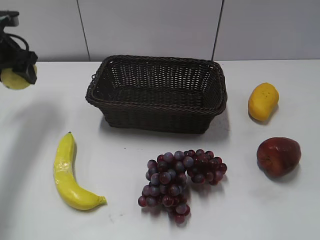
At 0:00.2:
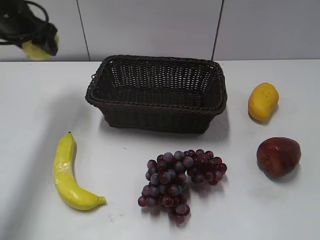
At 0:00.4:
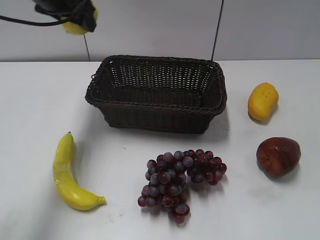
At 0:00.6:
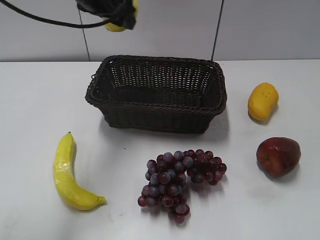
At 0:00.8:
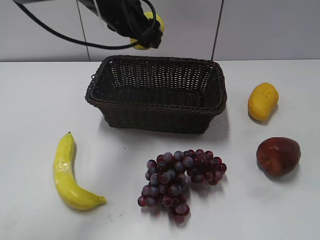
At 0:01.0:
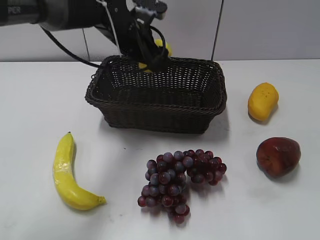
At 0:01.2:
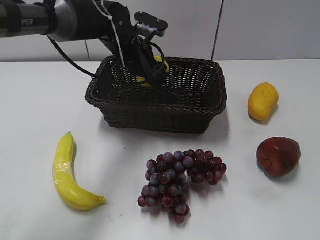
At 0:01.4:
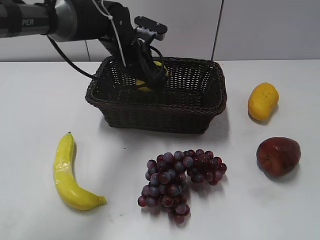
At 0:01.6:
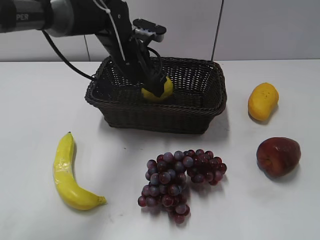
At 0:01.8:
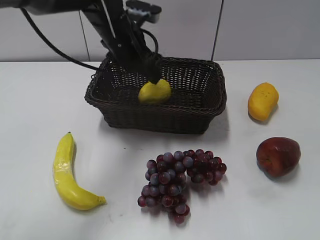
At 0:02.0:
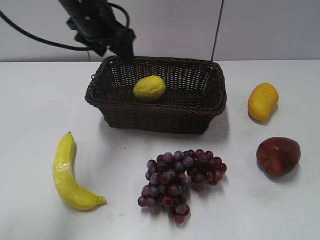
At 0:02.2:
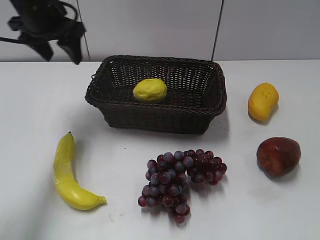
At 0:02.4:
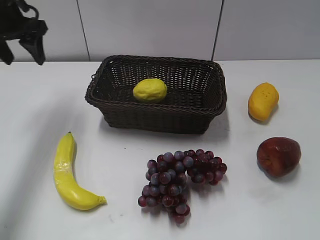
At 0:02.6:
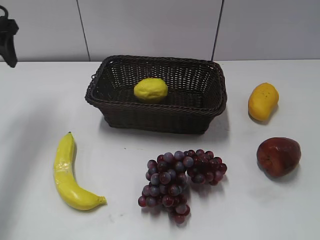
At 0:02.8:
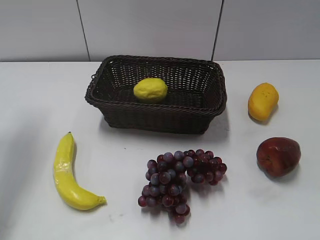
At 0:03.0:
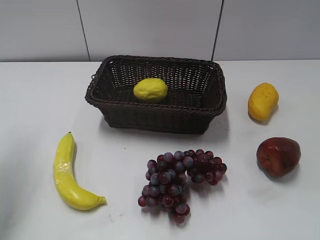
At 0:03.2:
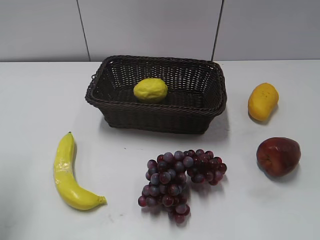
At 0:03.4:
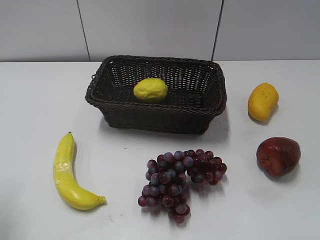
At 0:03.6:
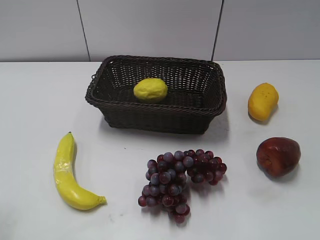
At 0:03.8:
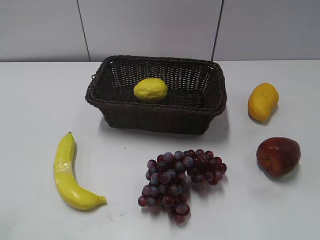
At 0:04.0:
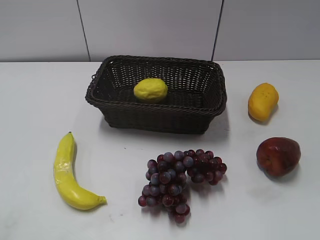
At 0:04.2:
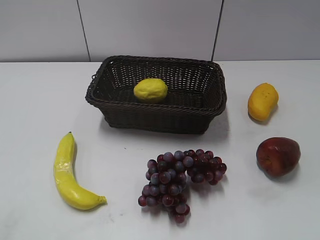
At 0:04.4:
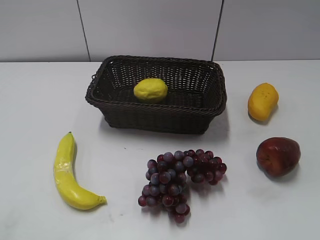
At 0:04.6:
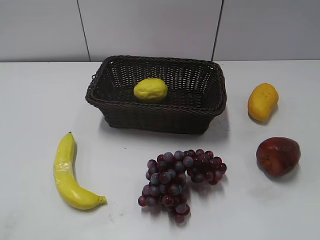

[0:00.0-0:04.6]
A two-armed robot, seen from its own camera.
Step, 0:00.0 to 0:01.8: Place the lemon in the basket with left gripper.
0:00.0 to 0:01.6: The left gripper goes some 25 cm to the right, and opens.
0:01.6 to 0:03.0: The left gripper goes about 30 cm to the left, backward and upward, and closes up.
0:03.0 to 0:04.6: The left gripper travels backward by some 30 cm.
